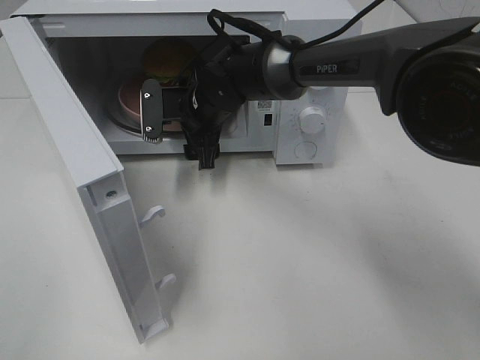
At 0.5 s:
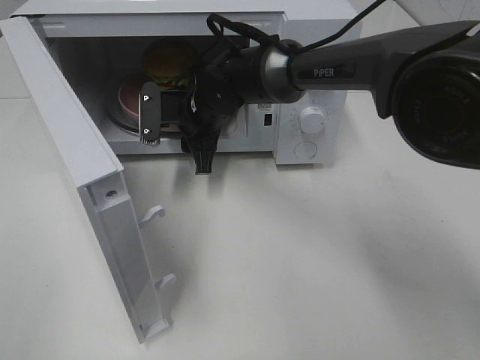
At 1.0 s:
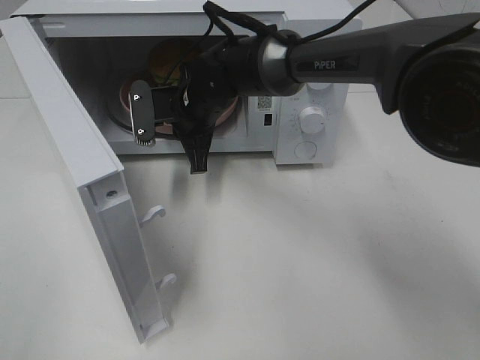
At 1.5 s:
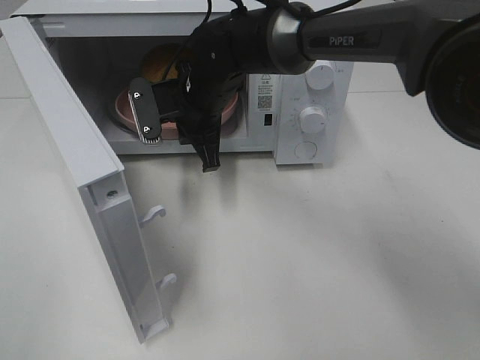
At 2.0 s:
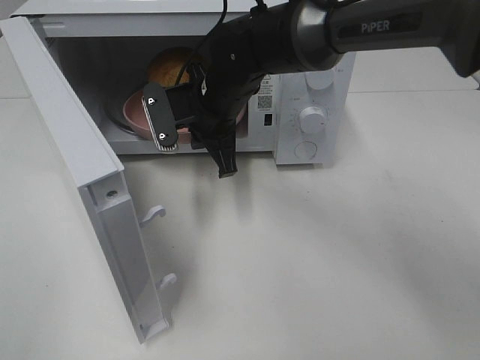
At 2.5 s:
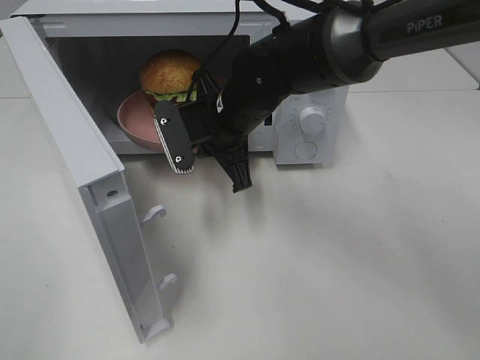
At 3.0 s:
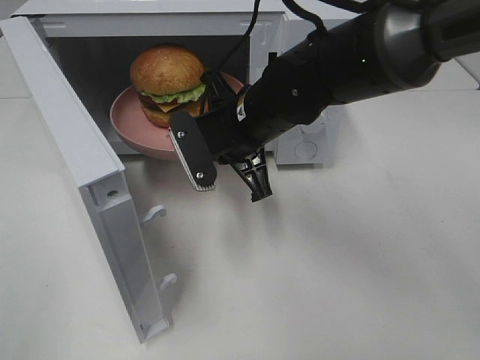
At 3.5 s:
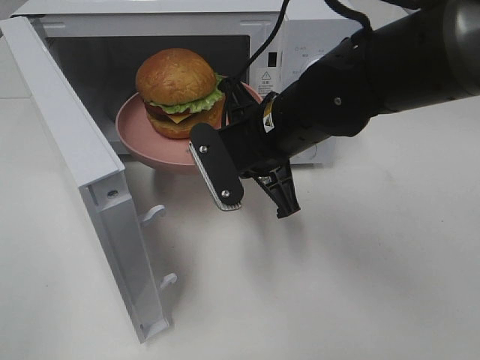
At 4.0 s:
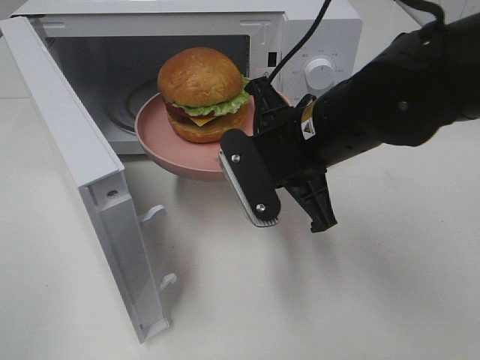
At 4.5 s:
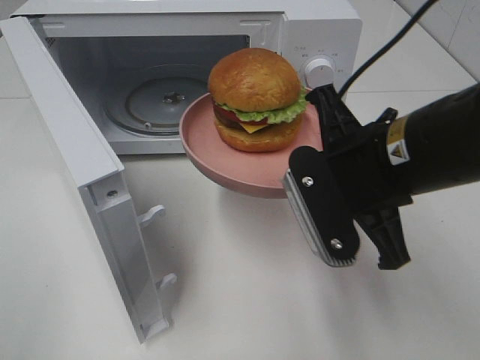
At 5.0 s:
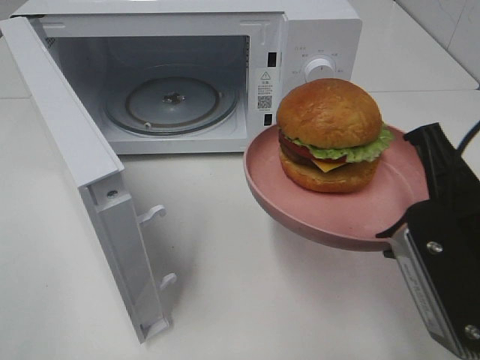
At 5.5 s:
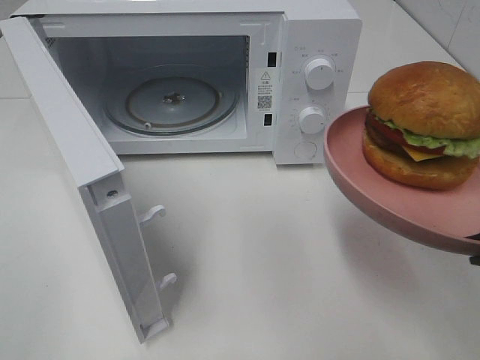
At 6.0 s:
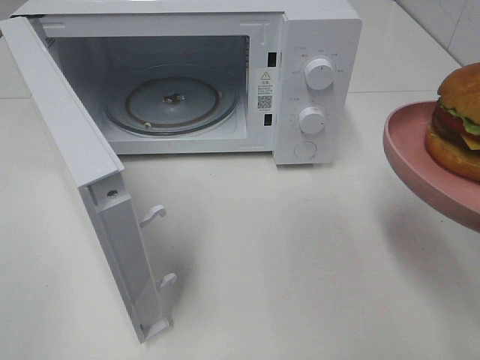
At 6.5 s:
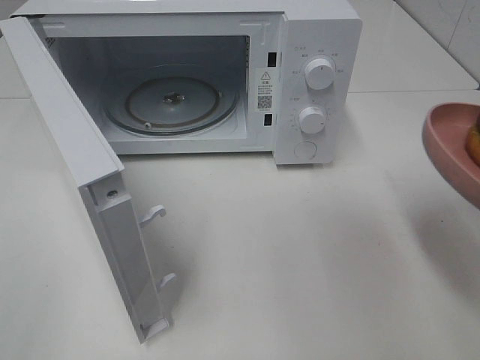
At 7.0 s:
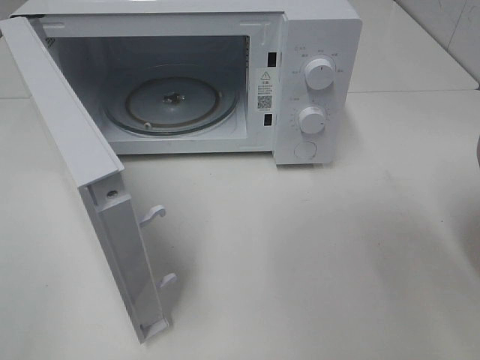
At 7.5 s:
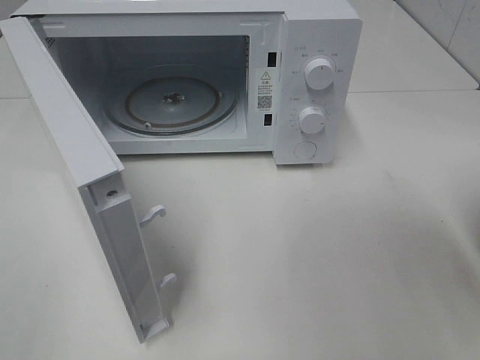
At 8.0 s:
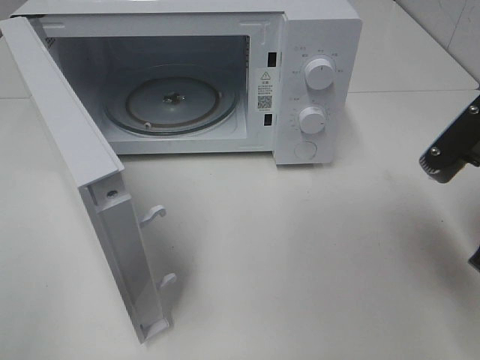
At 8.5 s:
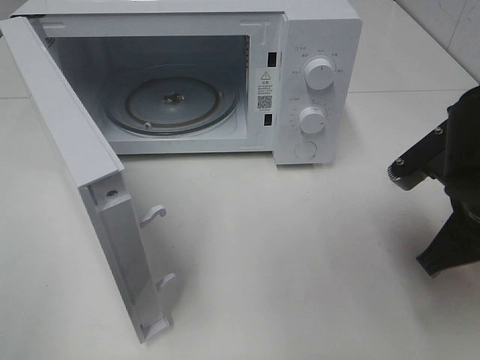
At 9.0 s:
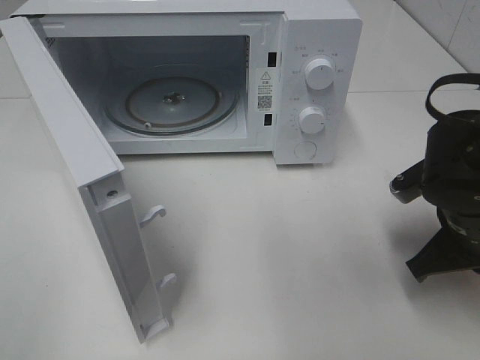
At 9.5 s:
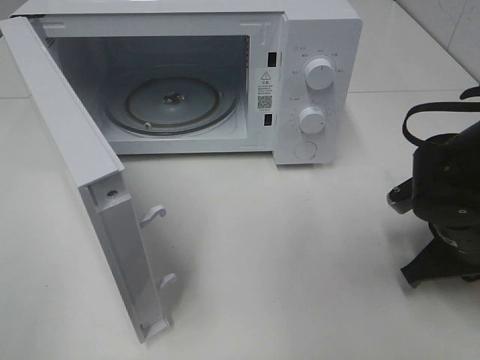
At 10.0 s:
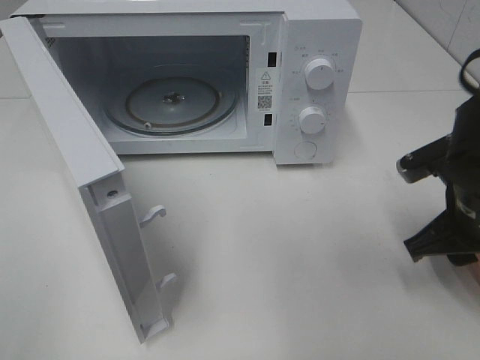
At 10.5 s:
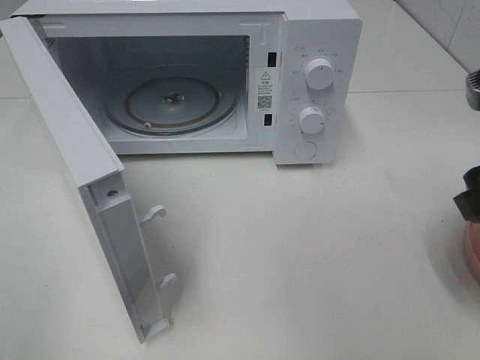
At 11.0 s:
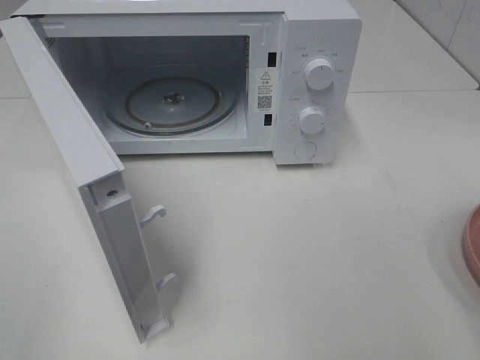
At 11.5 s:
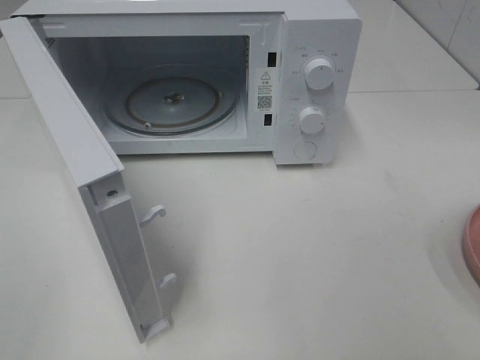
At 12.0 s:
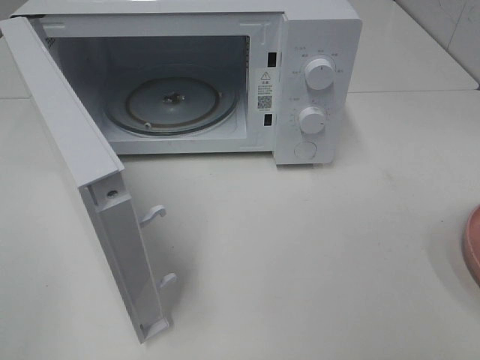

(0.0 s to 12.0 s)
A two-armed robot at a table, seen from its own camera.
Task of the whole recording: Heat the burger.
Step, 1.5 s - 9.5 s: Right hand: place the plate on the table.
0.0 s - 2.0 s: The right gripper ends up about 5 cm from where it was, and closes its fingers.
2.0 s - 4.0 s: The right gripper travels backward and to the right by some 15 cm.
4.0 s - 6.0 s: The right gripper goes about 20 cm to the right and backward.
6.0 s - 8.0 s: The right gripper heads forward, covering approximately 10 cm.
8.0 s - 10.0 s: The right gripper travels downward by roughly 5 cm, and opens its fingers.
10.0 s - 12.0 s: The right gripper heads backward and upward, covering roughly 25 cm.

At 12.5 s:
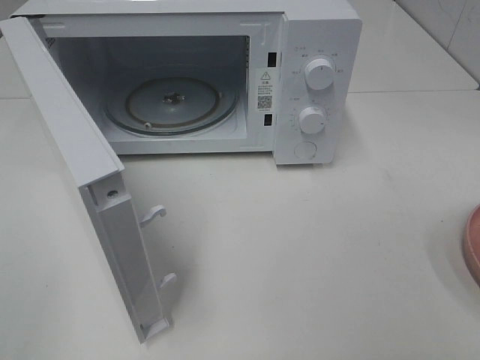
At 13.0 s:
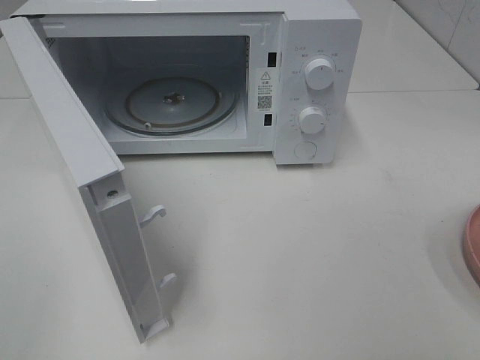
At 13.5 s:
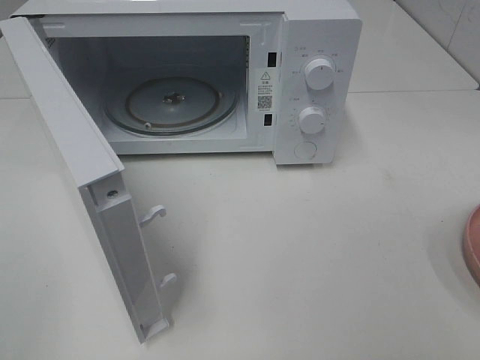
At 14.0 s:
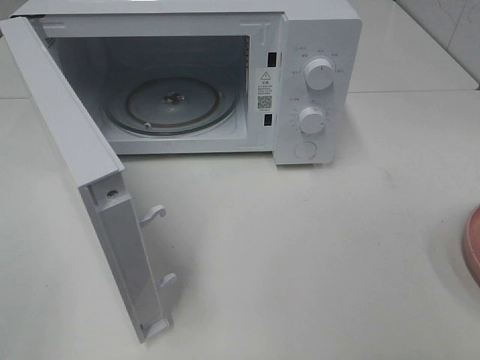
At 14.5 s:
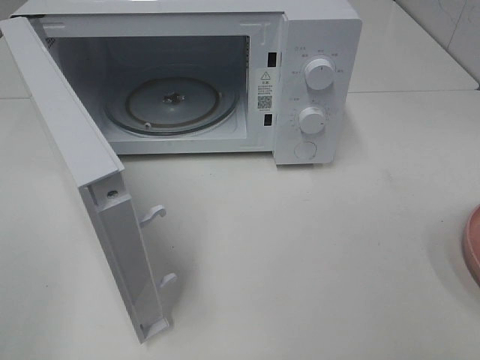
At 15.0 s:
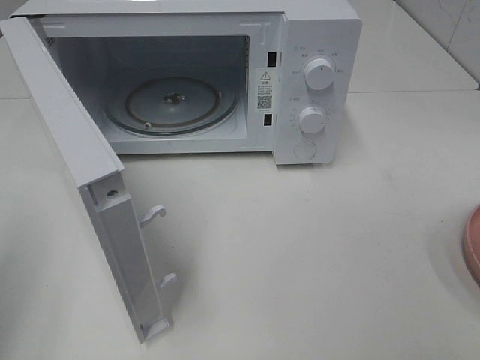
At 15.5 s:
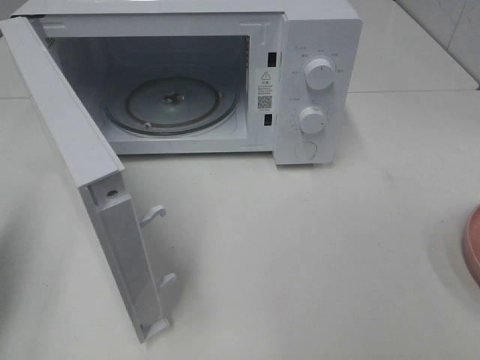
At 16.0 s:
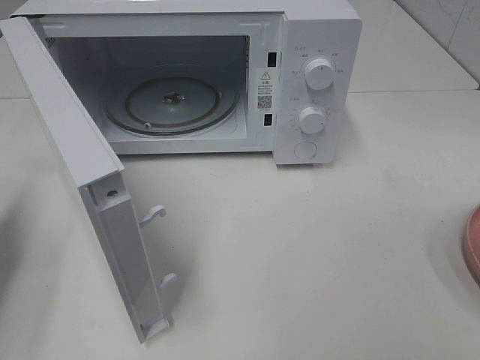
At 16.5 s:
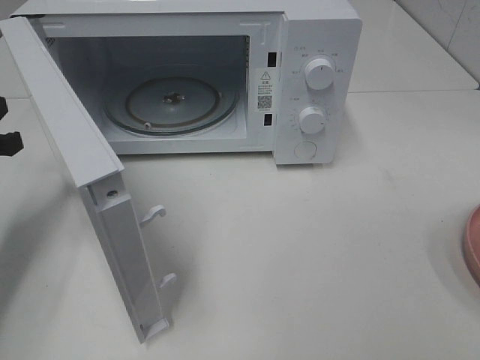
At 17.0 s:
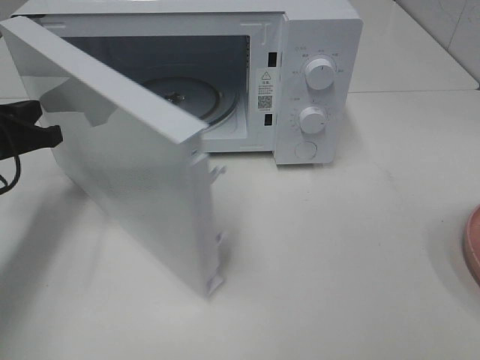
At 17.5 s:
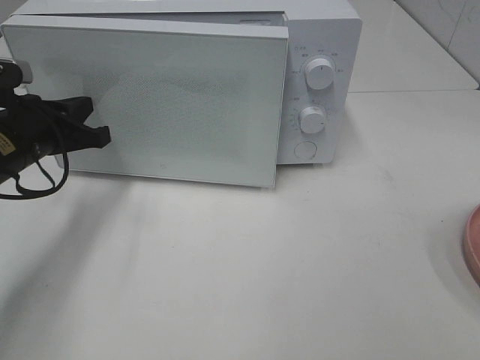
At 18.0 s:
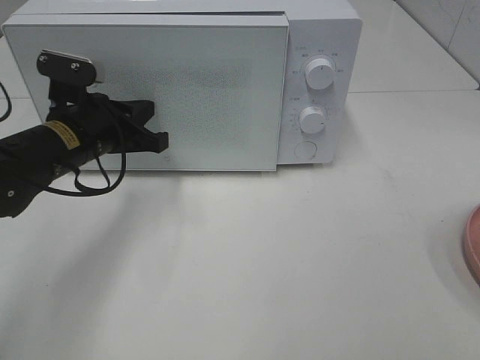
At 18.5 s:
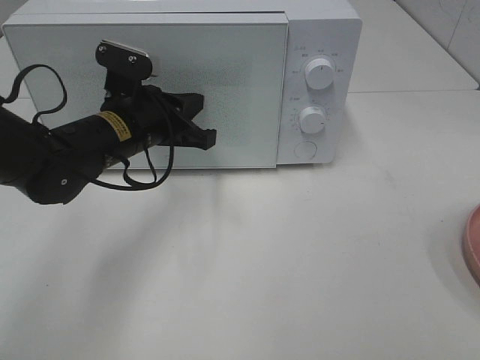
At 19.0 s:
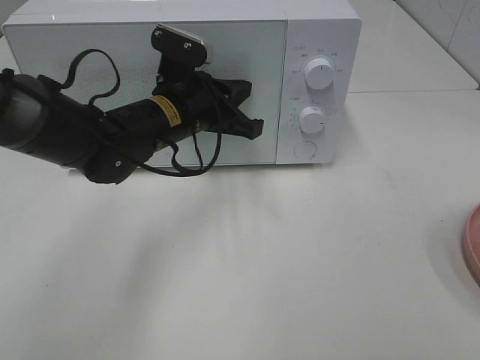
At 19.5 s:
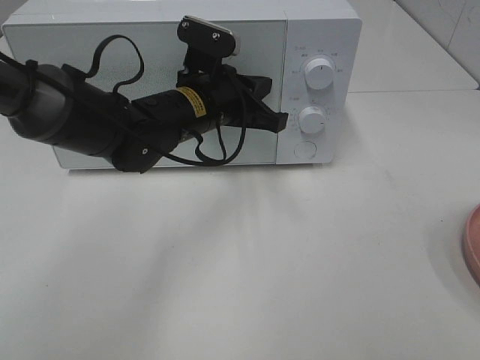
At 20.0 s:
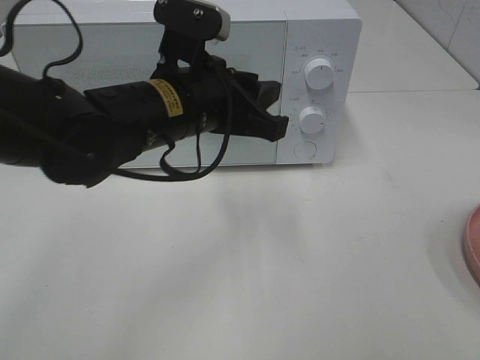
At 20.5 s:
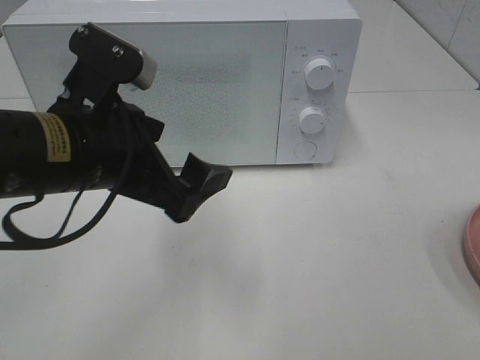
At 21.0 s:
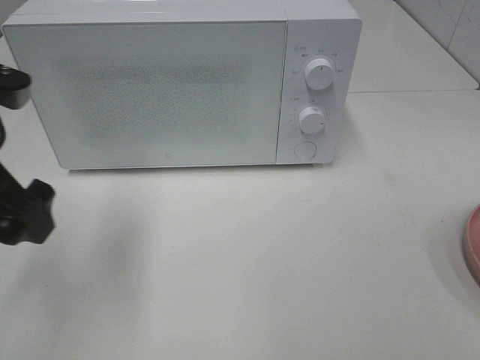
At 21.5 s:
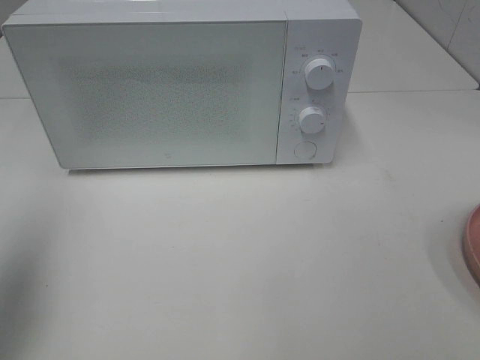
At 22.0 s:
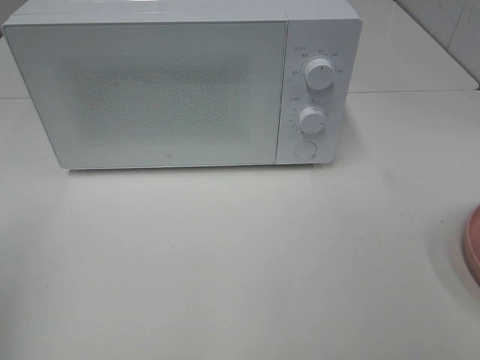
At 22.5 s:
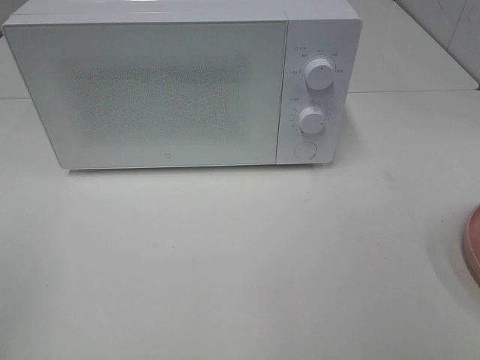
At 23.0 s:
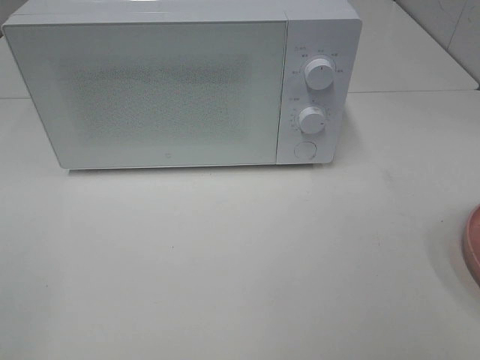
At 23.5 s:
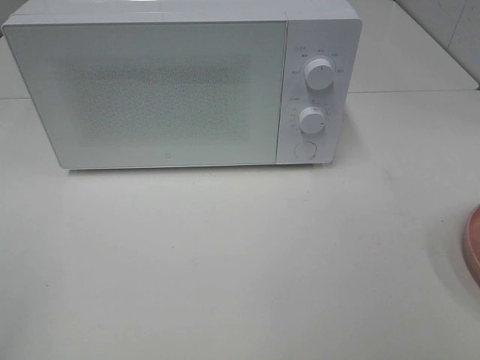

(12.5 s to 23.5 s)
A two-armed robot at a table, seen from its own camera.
Task of the whole recording: Heat the burger.
Step, 12.5 s - 19.5 s: Left hand: close the microwave door.
14.5 s - 16.0 s: The left gripper heads forward and downward, covering approximately 25 cm, and closes up.
16.0 s - 18.0 s: The left gripper goes about 20 cm to the right and forward.
18.0 s - 20.0 s: The left gripper travels to the right, upward and backward by approximately 15 cm, and opens up.
20.0 s - 21.5 s: The left gripper shifts some 25 cm to the left, and opens up.
21.5 s - 23.5 s: The left gripper shifts some 20 cm backward.
